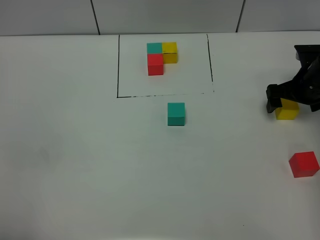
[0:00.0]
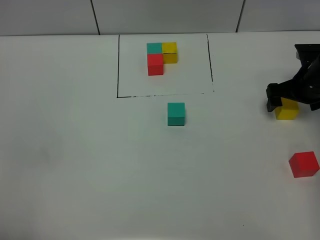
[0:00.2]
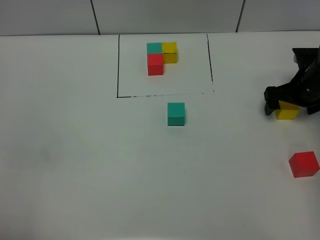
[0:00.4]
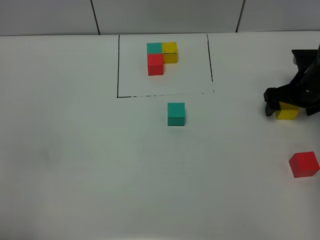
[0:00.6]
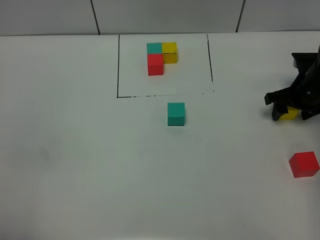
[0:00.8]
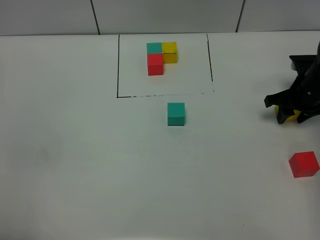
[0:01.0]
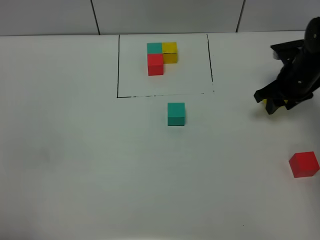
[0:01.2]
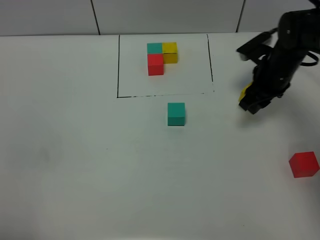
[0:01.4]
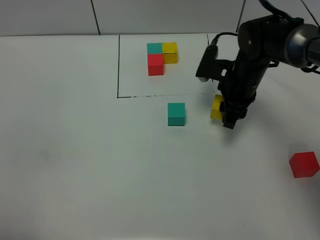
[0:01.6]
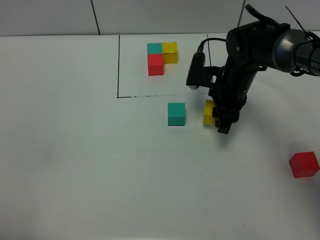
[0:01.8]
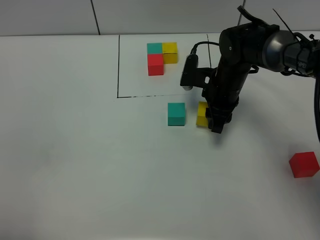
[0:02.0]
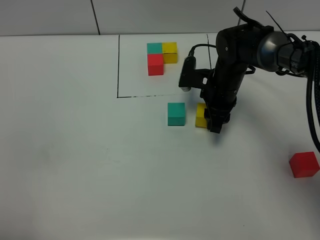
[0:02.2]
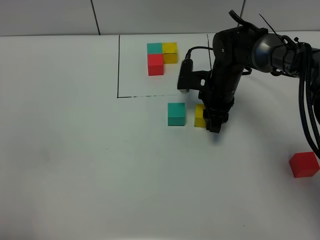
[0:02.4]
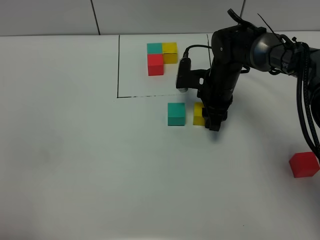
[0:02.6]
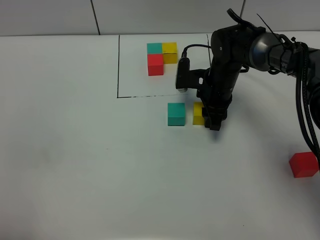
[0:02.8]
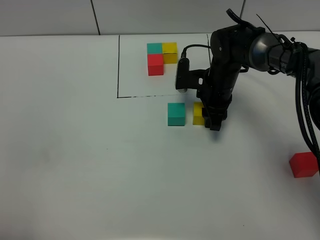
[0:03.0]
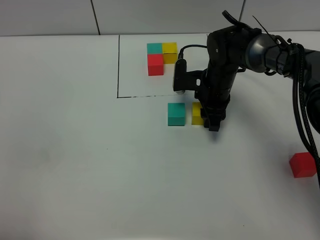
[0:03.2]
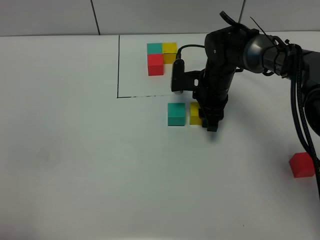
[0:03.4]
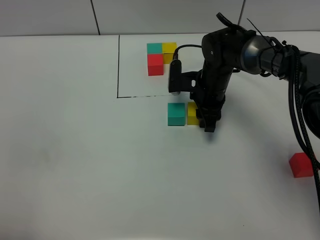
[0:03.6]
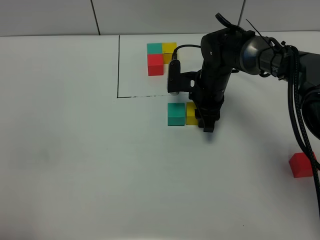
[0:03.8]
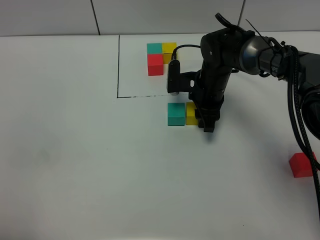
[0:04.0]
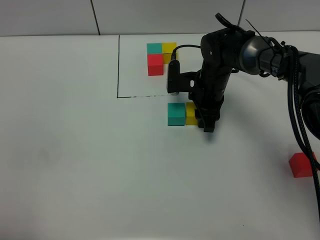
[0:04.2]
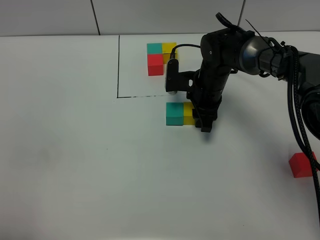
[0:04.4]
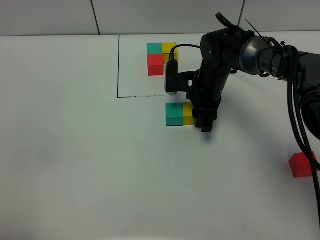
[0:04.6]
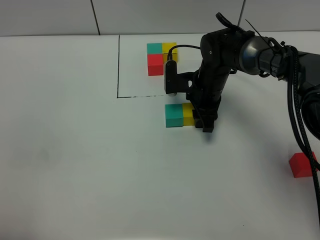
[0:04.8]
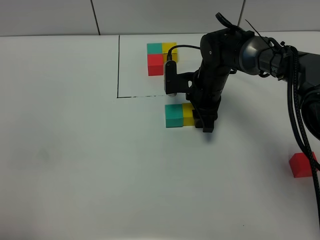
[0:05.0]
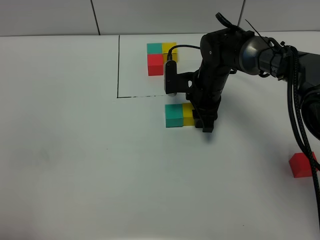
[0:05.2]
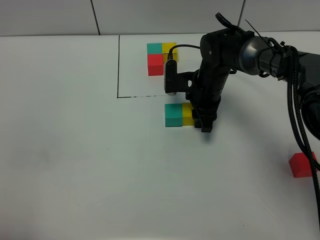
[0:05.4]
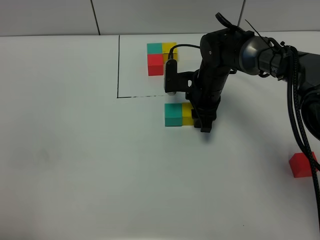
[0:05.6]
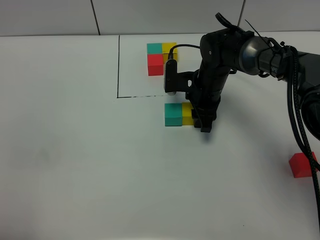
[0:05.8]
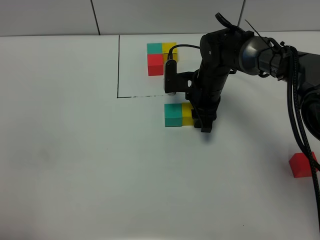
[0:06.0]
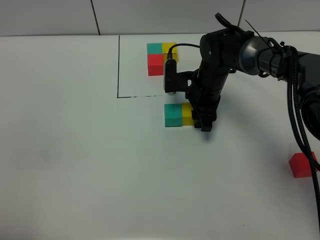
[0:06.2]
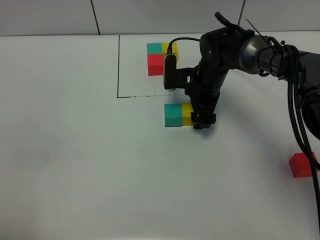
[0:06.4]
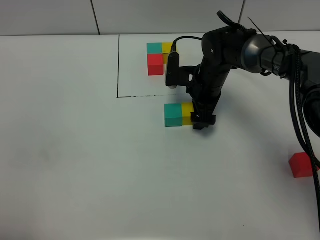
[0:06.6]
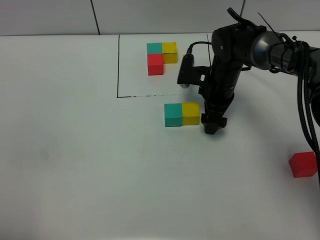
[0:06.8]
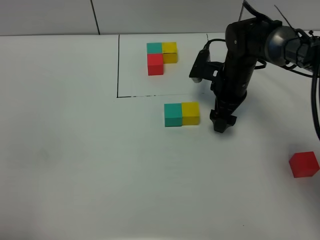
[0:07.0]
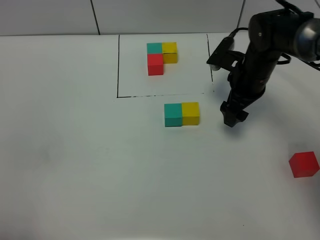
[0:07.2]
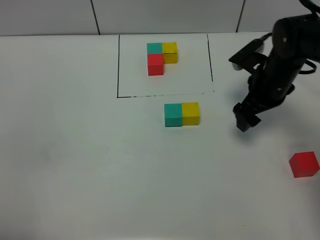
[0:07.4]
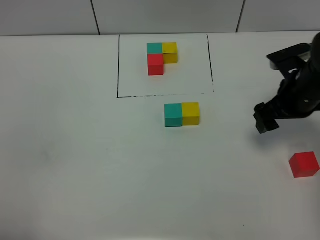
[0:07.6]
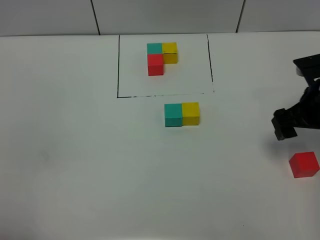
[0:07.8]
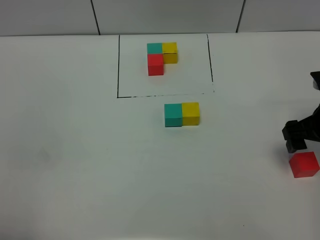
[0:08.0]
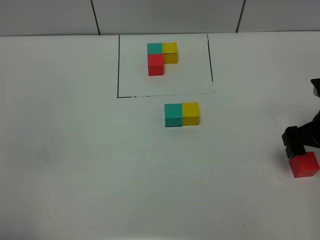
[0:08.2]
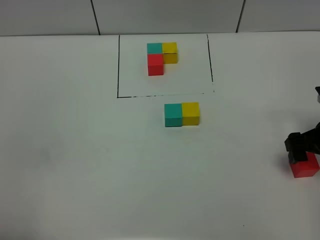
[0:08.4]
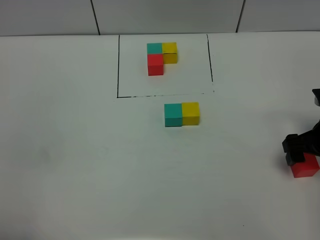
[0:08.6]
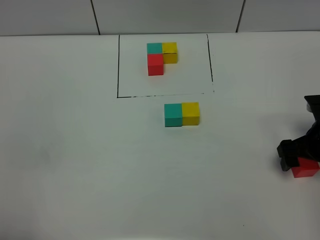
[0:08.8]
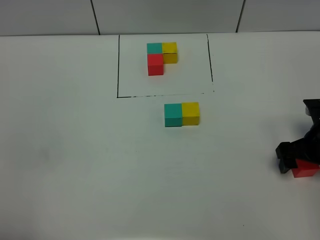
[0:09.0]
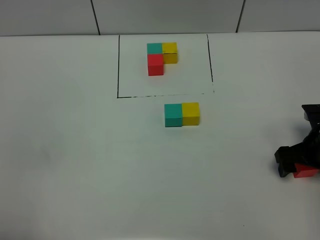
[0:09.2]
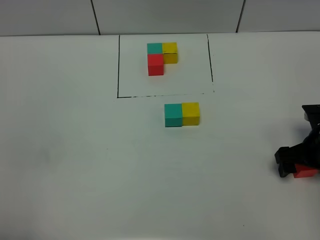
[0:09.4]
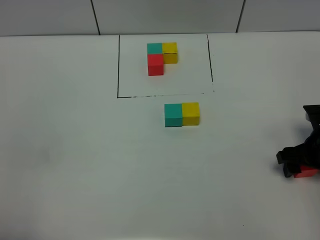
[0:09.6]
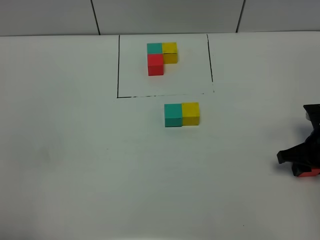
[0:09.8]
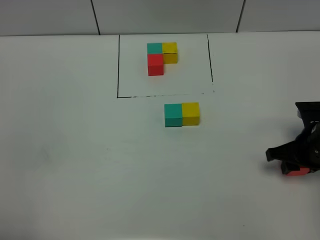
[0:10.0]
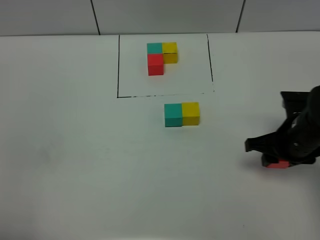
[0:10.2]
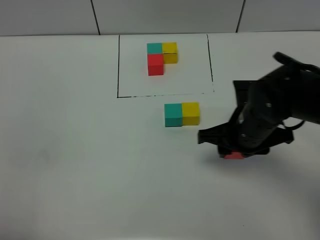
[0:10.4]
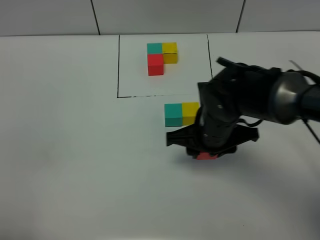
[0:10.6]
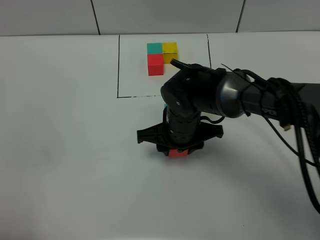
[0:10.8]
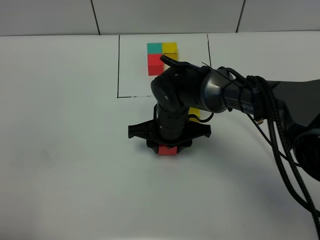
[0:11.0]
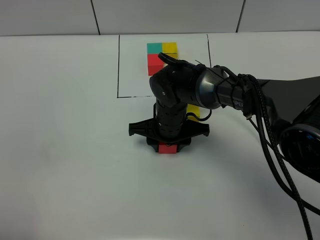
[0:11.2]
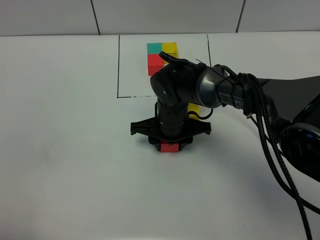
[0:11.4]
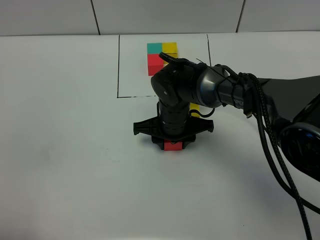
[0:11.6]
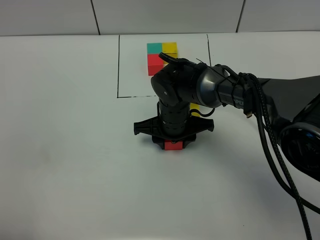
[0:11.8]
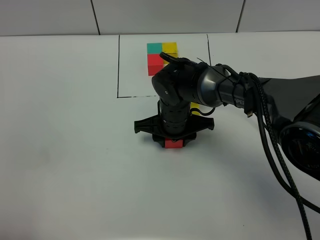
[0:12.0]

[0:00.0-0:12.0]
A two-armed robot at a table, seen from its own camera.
Task of the whole recording: According to the building block template in front, assemble the scattered blocks together.
Step, 0:00.0 to 0:06.4: Put the yellow build block on the right of the green build block.
0:00.0 to 0:01.6: The right gripper is displaced to the left by roughly 15 cm, and closes its fingers.
0:01.6 to 0:03.0: The right gripper shifts by about 5 cm.
0:03.0 to 0:04.4: The grippers make only small movements.
0:04.4 to 0:06.0: Both grippers stay put.
0:06.0 to 0:07.6: The right gripper is displaced to the right, backward and upward by approximately 20 cm, and opens up.
0:07.6 to 0:09.0: The right gripper moves downward and backward, some 10 cm.
0:09.0 to 0:10.4: The right gripper shifts about 15 cm to the left, and closes up.
0:10.4 to 0:12.0: The right gripper heads to the left, forward and downward, covering approximately 15 cm.

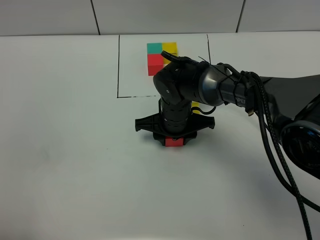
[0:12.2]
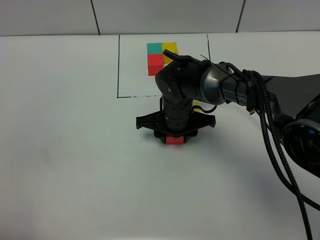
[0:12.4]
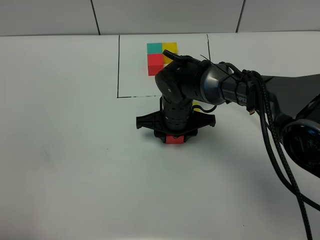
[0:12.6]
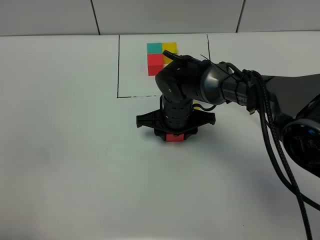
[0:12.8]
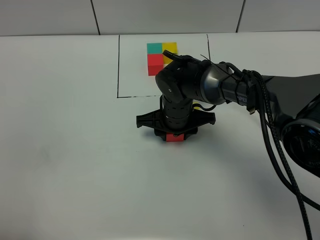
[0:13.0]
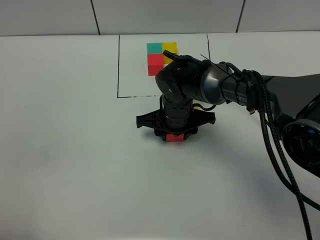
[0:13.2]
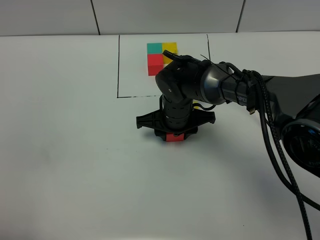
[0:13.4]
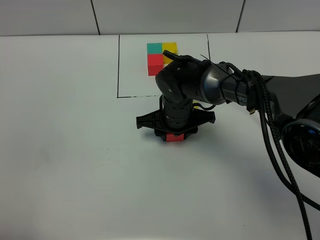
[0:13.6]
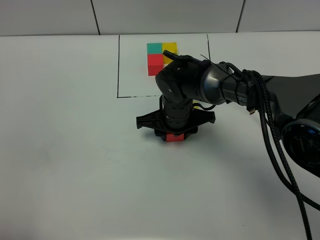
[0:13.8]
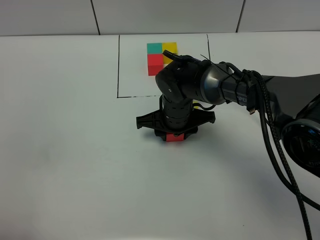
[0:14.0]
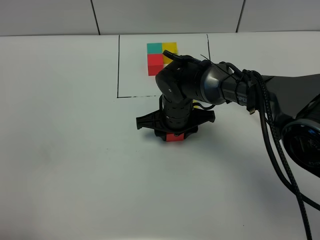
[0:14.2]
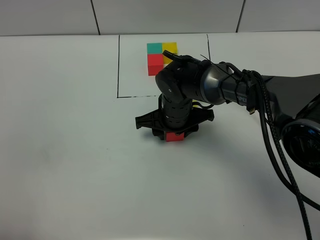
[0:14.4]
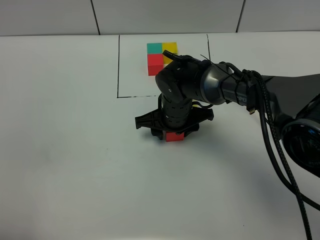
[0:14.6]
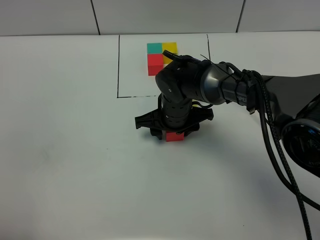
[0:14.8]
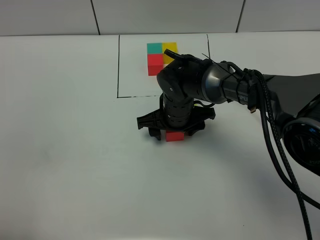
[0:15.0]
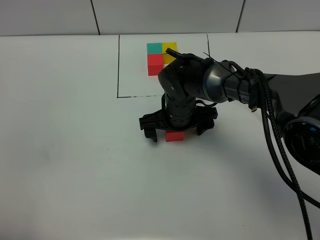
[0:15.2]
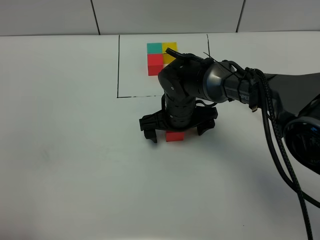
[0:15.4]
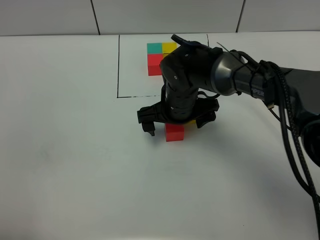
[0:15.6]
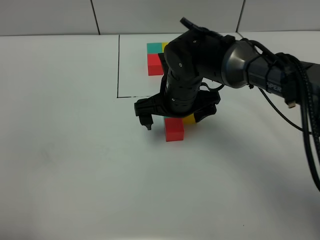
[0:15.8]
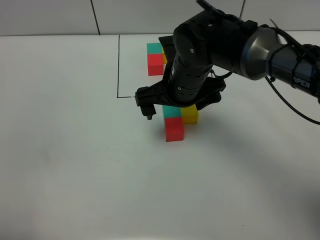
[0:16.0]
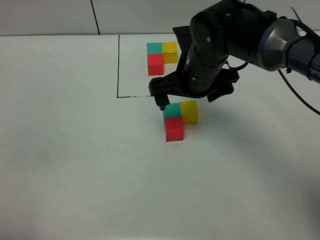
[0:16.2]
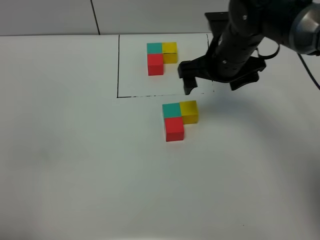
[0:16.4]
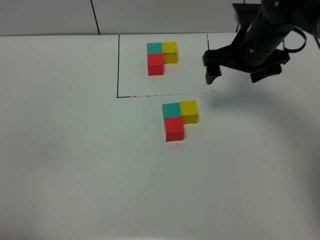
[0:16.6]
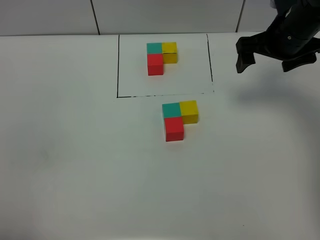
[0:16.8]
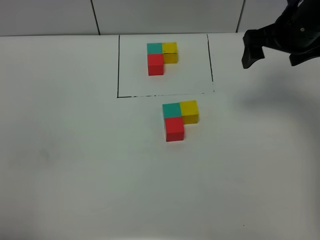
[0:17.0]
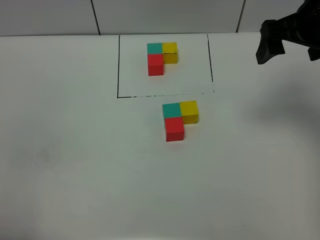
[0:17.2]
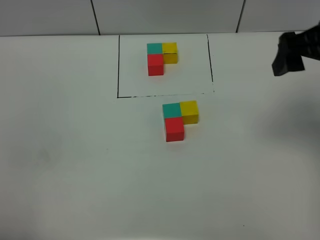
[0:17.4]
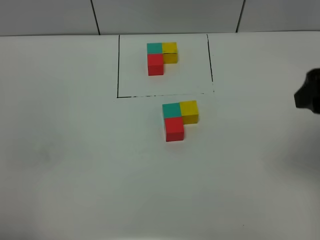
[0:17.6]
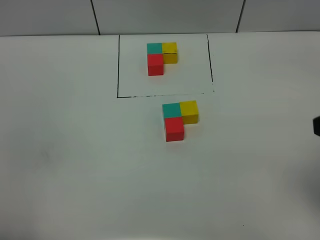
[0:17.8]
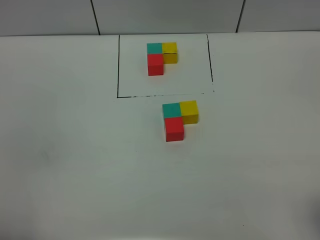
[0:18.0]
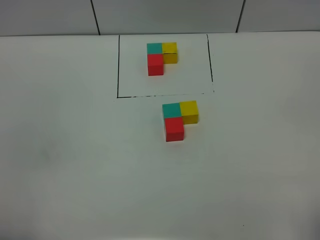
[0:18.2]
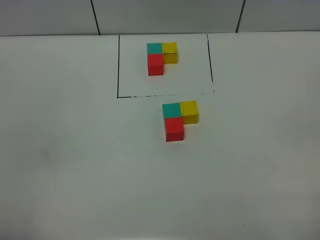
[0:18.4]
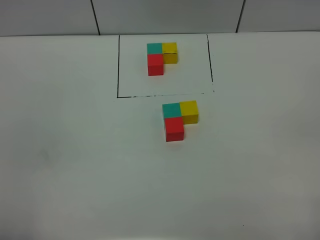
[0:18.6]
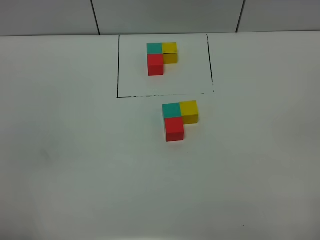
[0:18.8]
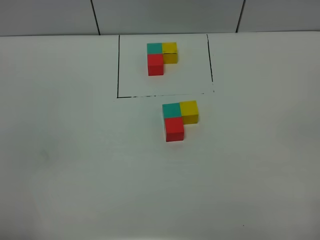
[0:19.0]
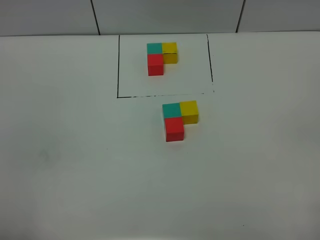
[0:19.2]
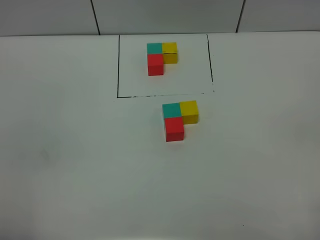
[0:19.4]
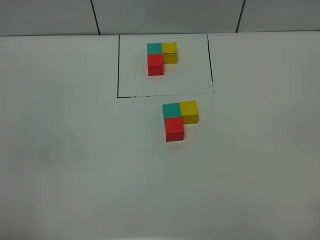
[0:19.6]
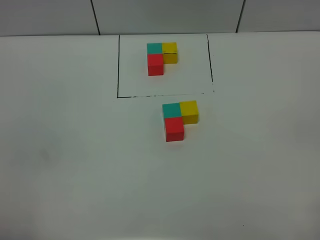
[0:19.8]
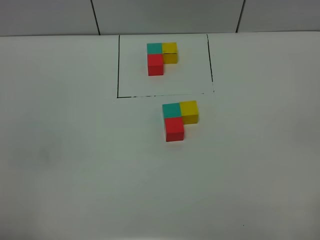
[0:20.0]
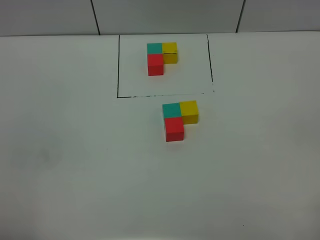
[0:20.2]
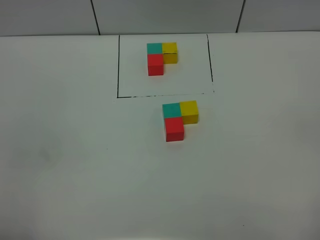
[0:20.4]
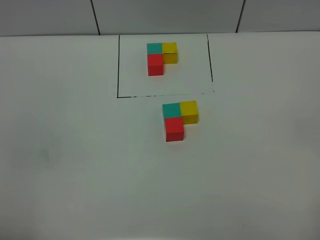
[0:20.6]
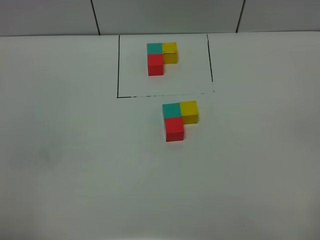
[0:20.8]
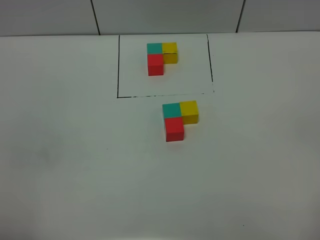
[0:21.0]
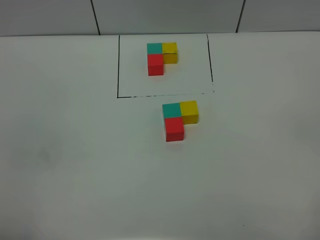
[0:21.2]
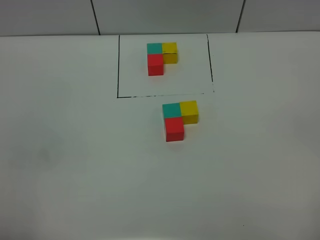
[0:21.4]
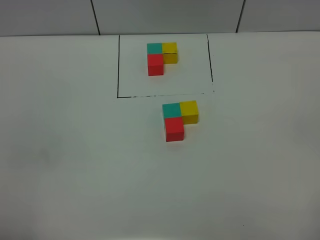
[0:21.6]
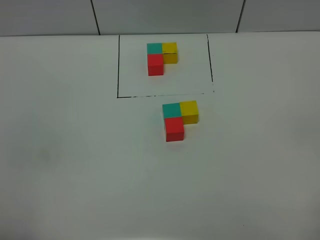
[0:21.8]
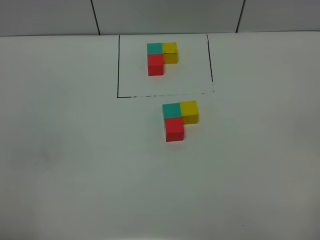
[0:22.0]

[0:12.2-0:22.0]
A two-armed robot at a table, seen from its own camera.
Task of the whole recording: According to the building block template in front, assemble the scattered blocks together.
Step, 0:12.2 to 0:15.0: Put the red build block on the behind of the green' build block.
0:12.2 to 0:13.6: The two grippers keep their place.
0:13.6 to 0:15.0: The right gripper opens.
0:15.0 to 0:16.4: The right gripper heads upward and to the right, covering some 15 cm, and opens up.
0:16.4 to 0:17.8: The right gripper shifts roughly 30 cm backward, to the right and upward.
0:17.8 to 0:19.2: The right gripper shifts roughly 15 cm backward and downward.
0:20.6 to 0:22.0: The two grippers keep their place.
